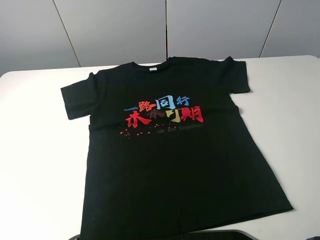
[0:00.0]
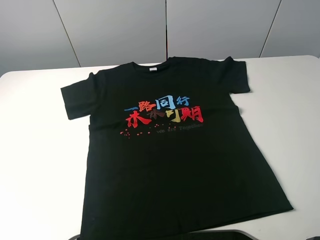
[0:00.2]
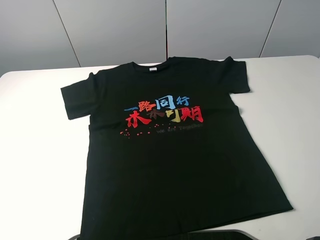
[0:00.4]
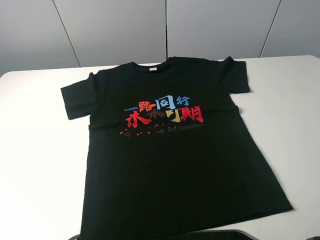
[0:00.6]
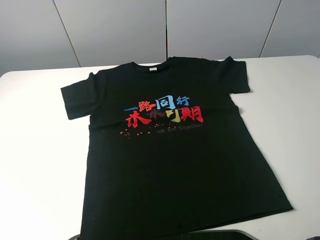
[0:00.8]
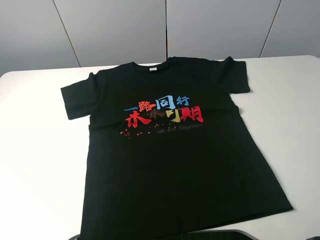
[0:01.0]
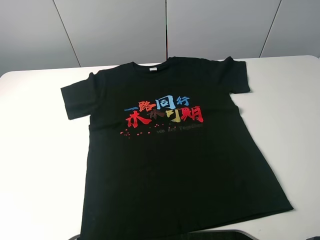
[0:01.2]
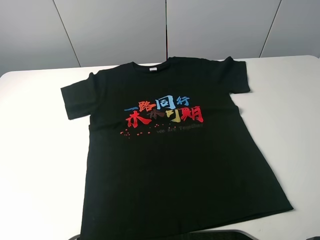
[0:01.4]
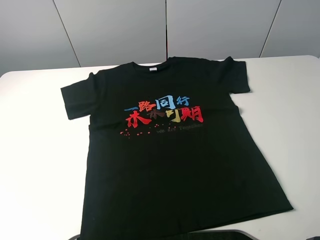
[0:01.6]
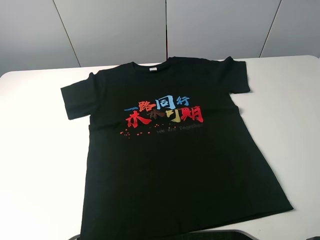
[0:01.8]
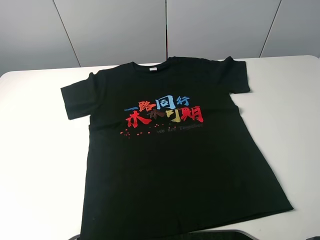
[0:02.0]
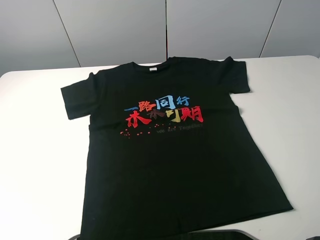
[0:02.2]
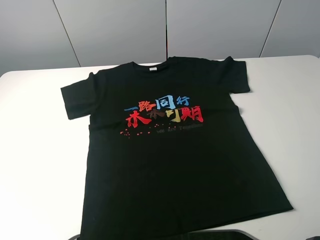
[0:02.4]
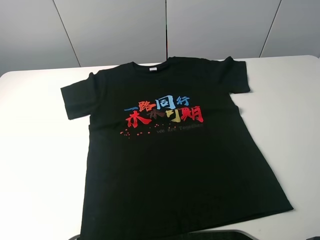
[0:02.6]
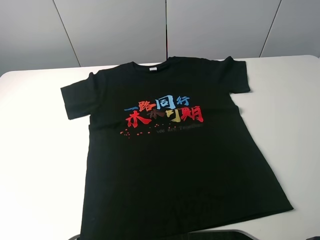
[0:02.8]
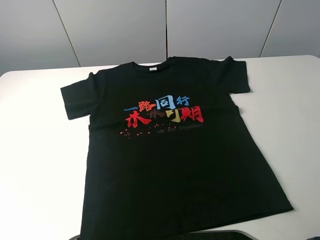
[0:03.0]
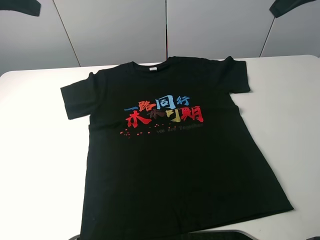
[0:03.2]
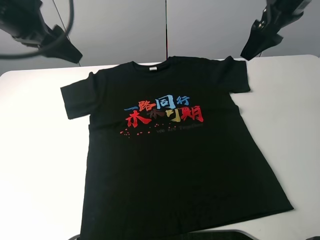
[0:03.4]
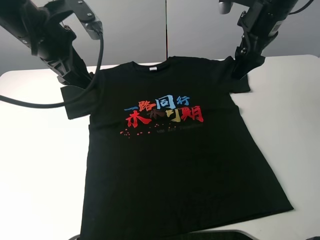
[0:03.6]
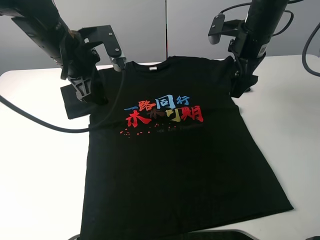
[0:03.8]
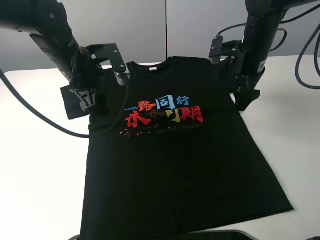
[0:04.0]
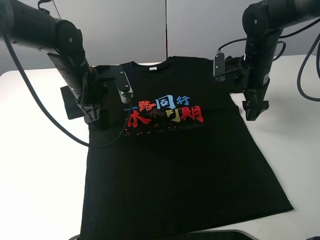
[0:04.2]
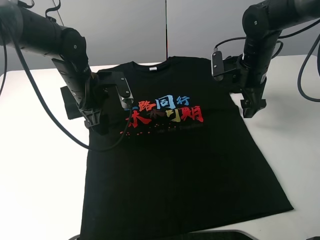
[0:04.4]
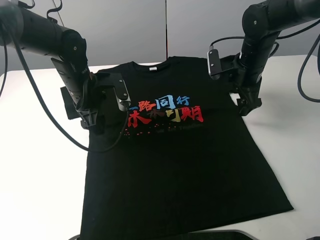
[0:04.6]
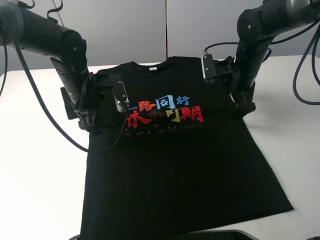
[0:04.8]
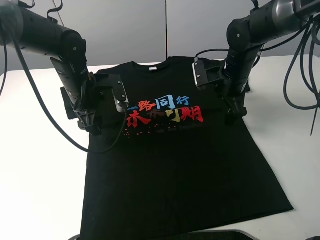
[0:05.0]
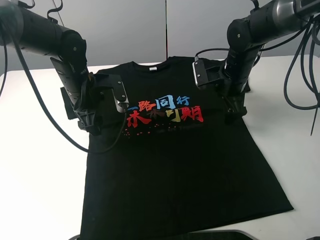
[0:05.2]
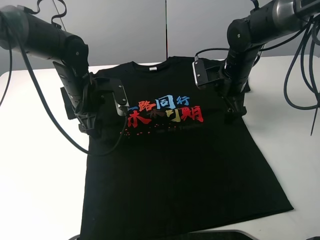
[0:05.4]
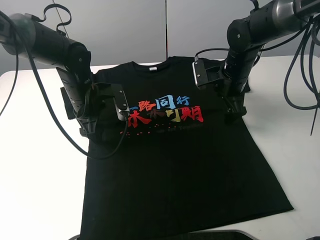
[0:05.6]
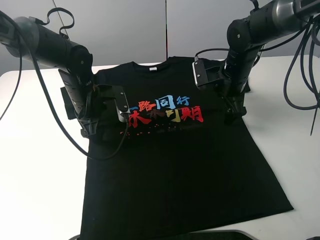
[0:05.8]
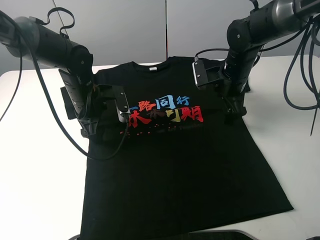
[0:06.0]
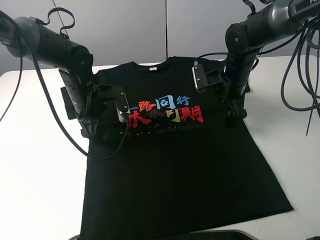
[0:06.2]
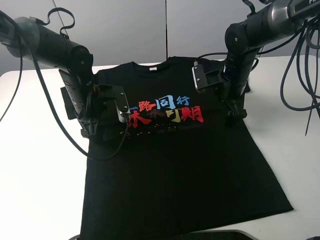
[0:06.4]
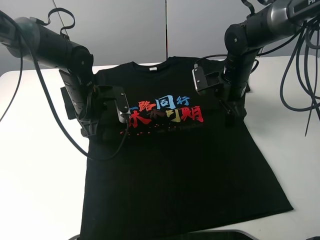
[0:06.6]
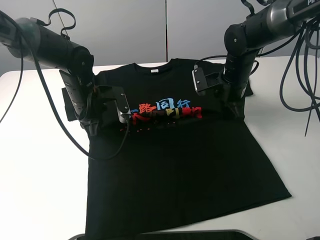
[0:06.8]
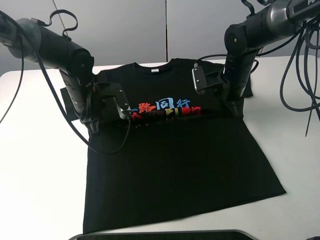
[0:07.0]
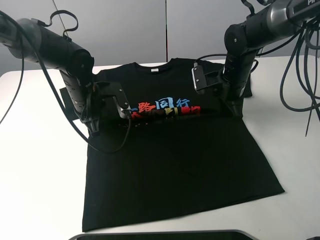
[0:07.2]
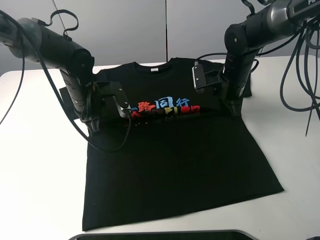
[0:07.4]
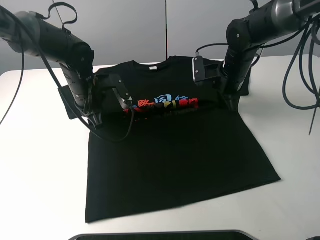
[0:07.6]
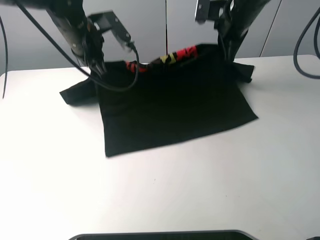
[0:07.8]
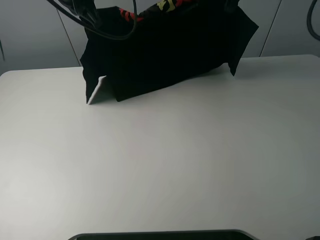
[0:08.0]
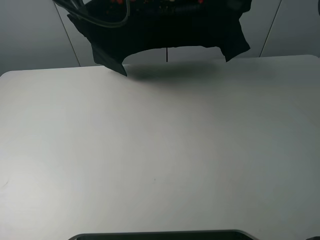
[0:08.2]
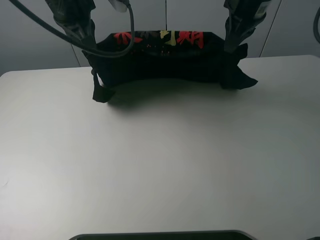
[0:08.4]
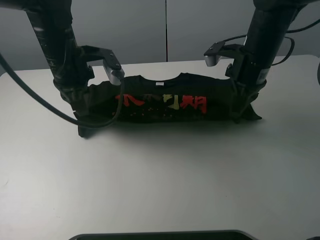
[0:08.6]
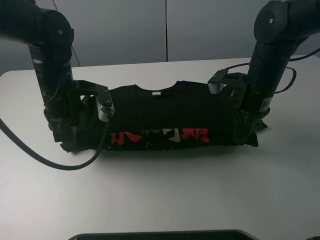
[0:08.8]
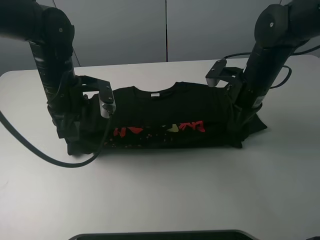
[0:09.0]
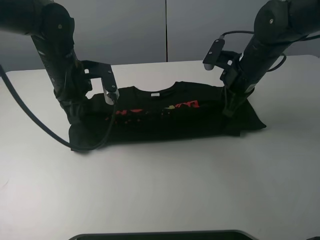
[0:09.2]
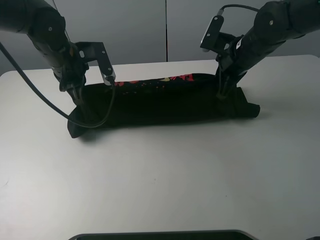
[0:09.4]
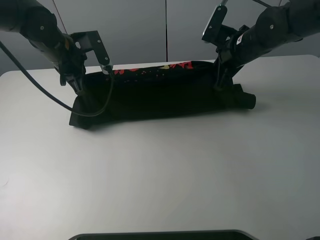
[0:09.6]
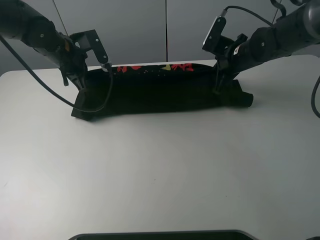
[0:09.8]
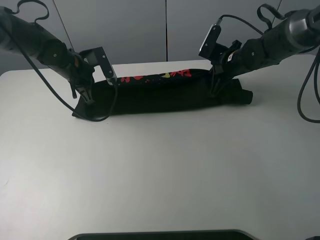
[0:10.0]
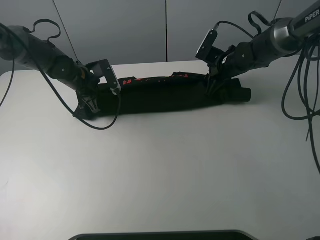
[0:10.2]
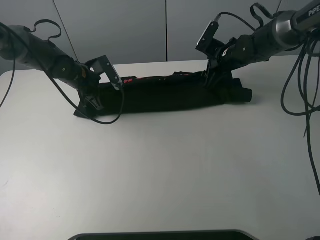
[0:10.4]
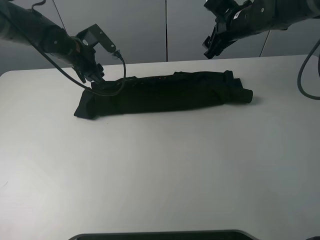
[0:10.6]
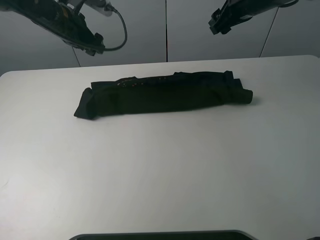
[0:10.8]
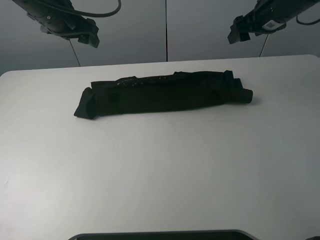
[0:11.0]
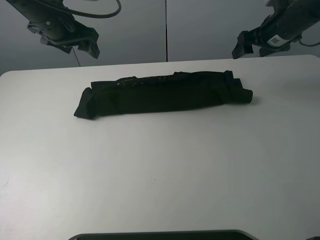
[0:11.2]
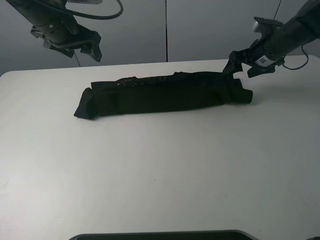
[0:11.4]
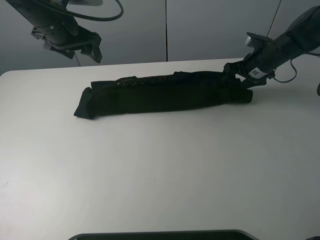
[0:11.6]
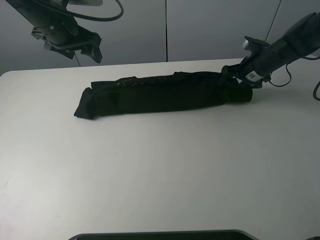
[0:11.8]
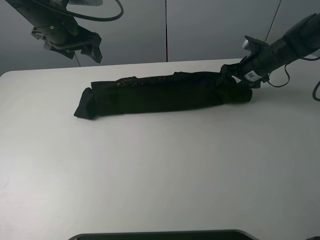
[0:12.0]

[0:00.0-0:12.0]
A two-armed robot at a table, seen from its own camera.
Task of the whole recording: fold the clothes on the table.
Step, 0:00.0 to 0:07.0: Lift the black T-shirt with the left gripper.
Step, 0:07.4 to 0:10.6: Fold the black T-shirt downward with the left gripper.
0:00.0 to 0:01.6: Both grippers stay put.
0:01.6 to 0:03.0: The right gripper goes some 30 cm forward.
0:03.0 to 0:04.4: The left gripper goes approximately 30 cm downward and to the right, while the right gripper moves downward, roughly 25 cm.
0:04.4 to 0:06.0: There are only small adjustments of the grippers.
0:06.0 to 0:07.6: The right gripper closes, while the left gripper closes its fingers.
0:07.6 to 0:09.0: Both grippers move backward, about 5 cm. The right gripper travels upward and back again, about 20 cm each way; the left gripper reaches roughly 20 cm upward, then returns.
0:09.0 to 0:10.4: The left gripper moves forward and downward, about 15 cm. Meanwhile the right gripper goes roughly 15 cm forward, and opens its fingers.
0:10.4 to 0:12.0: The left gripper travels upward by approximately 15 cm, and opens its fingers. The right gripper shifts about 10 cm to the right, and moves some 15 cm upward and comes back.

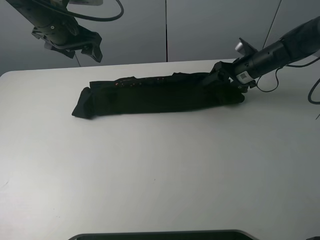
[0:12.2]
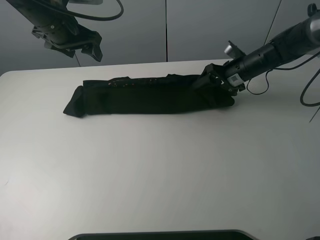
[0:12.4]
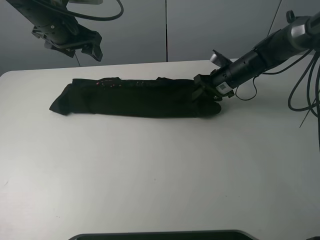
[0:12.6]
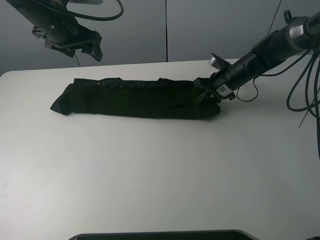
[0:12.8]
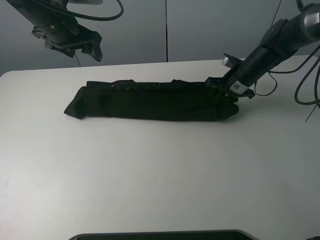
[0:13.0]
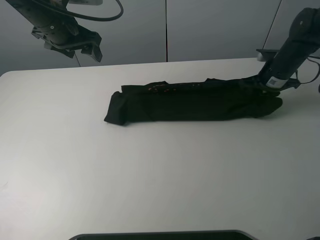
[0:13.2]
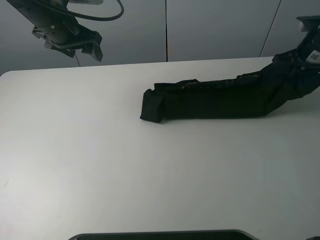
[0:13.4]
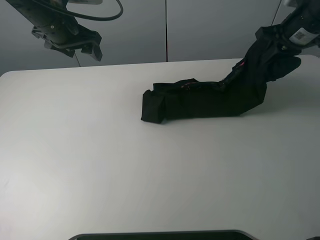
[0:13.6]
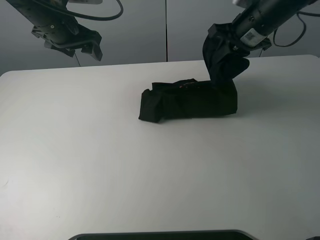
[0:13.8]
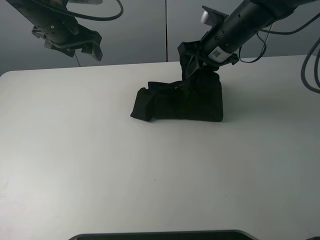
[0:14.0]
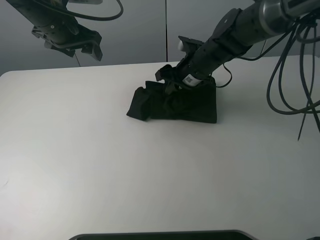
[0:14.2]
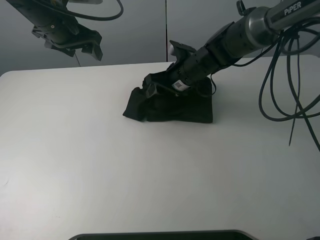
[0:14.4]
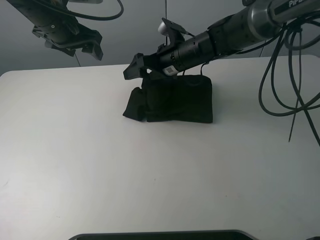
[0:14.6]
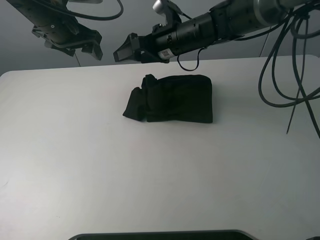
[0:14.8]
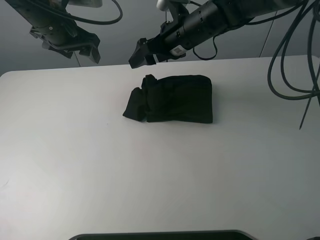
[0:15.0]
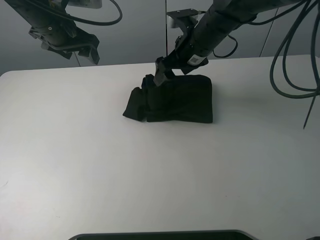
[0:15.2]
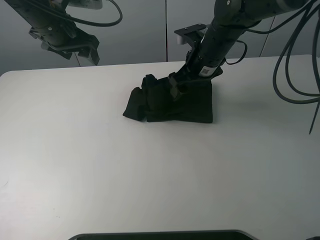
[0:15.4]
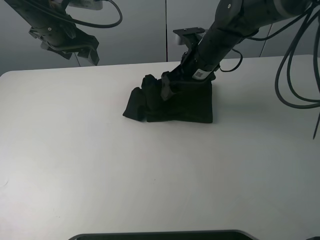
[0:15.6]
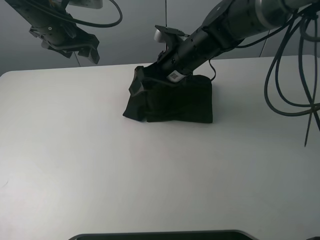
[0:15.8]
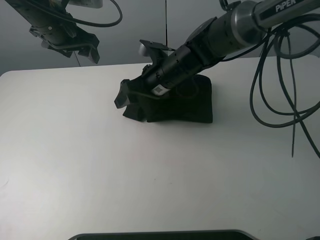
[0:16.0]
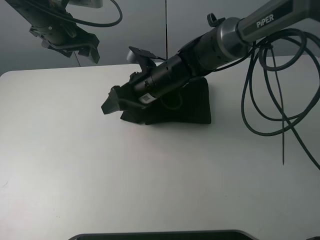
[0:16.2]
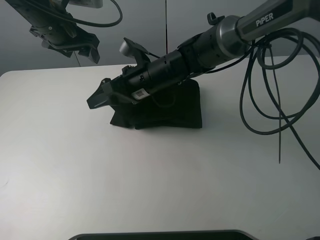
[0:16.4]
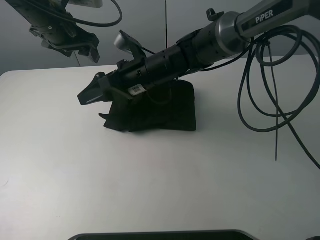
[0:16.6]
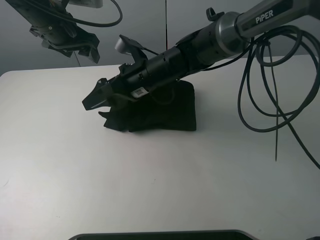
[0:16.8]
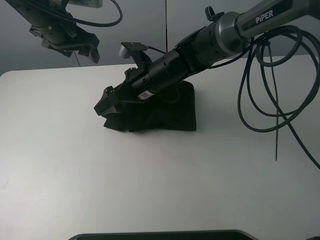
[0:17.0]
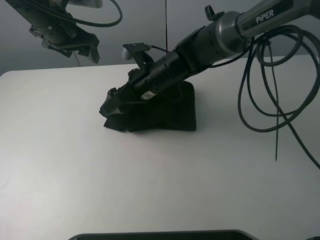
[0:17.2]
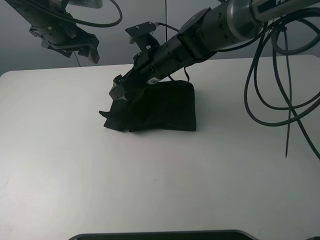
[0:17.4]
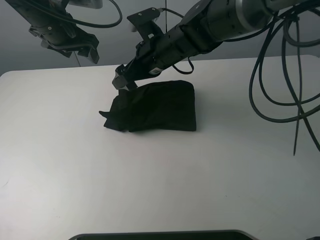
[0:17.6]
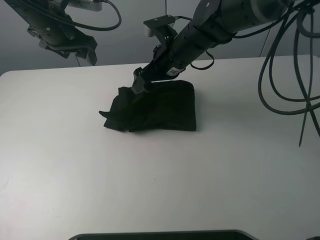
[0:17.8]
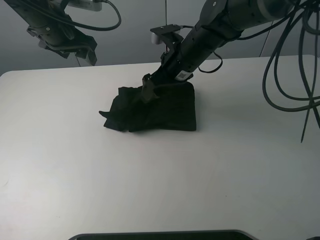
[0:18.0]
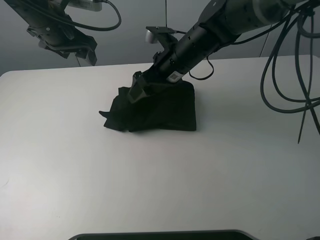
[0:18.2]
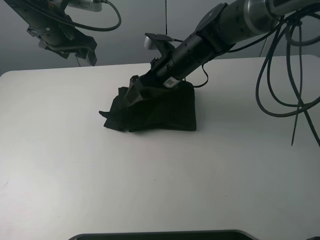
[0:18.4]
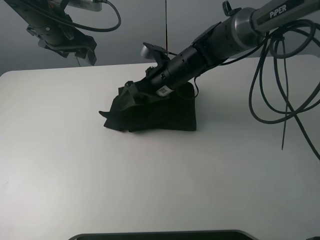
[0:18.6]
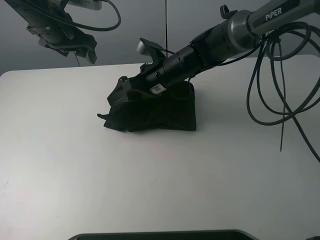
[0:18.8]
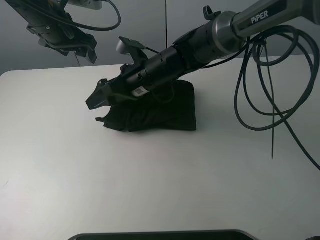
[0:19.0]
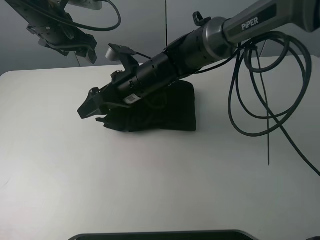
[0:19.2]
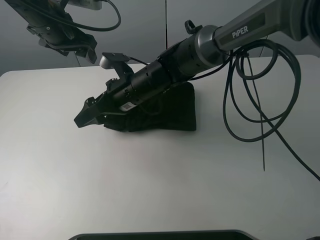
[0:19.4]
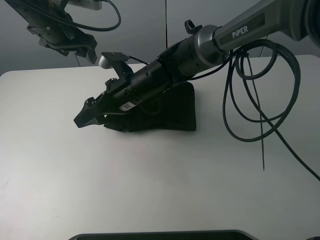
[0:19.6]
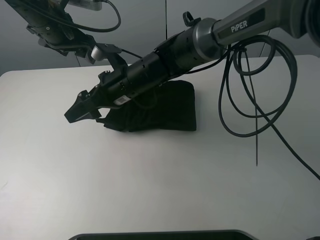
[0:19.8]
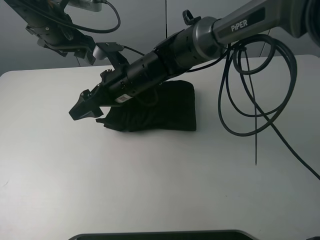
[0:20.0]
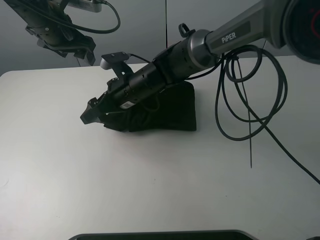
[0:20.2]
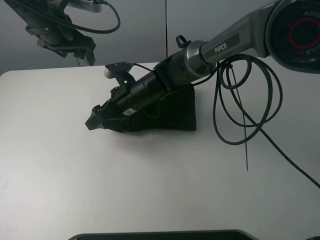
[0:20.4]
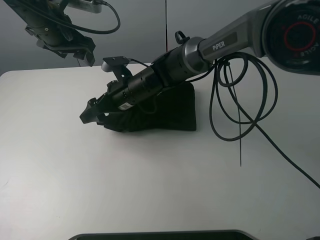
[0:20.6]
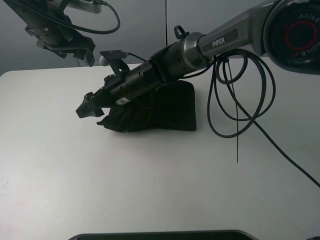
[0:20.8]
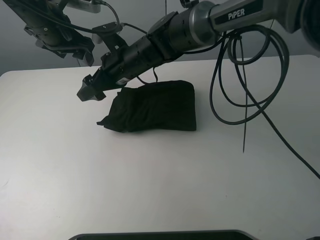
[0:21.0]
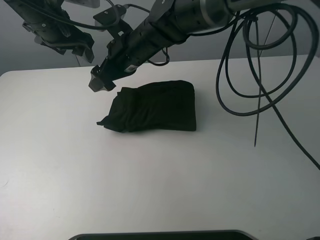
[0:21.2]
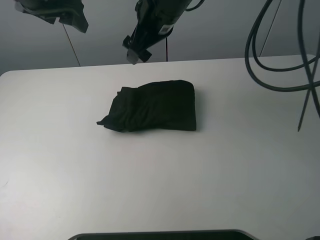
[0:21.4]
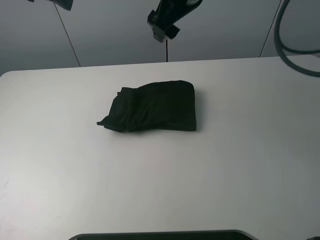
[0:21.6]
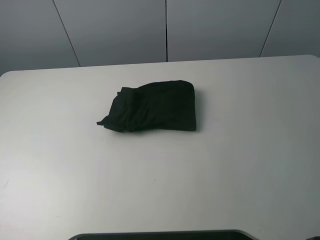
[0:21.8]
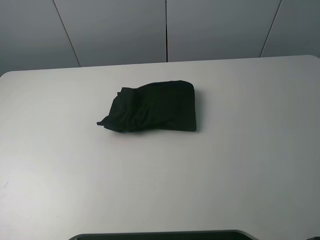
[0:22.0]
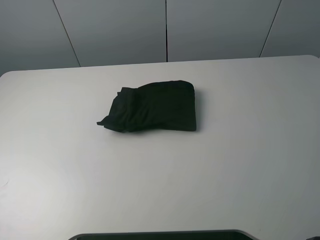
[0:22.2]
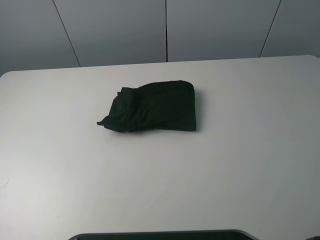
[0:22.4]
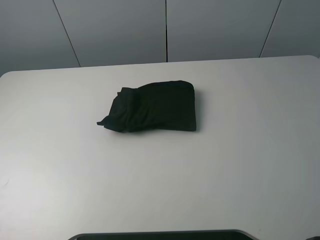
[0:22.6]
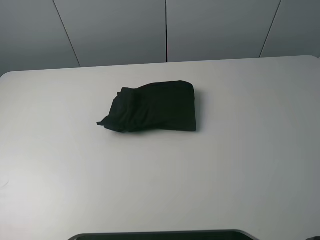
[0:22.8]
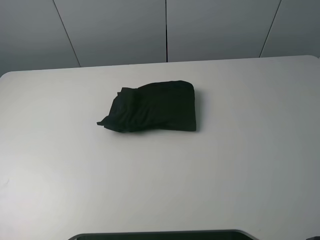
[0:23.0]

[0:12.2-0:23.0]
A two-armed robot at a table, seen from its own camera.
Task of the whole recording: fold the clothes on the table.
Step, 0:12.6 to 0:19.2: Fold the black T-shirt from right to left with right gripper.
0:12.2 to 0:13.8: The right gripper heads upward and to the left, covering approximately 15 cm, and closes up.
0:13.8 to 0:15.2: The right gripper shifts about 10 cm to the left, and opens up.
0:15.2 to 0:16.8: The right gripper moves to the left and backward, approximately 10 cm.
0:16.8 to 0:18.4: The right gripper is displaced to the right by approximately 5 cm.
0:18.4 to 0:20.0: The right gripper travels to the left by roughly 10 cm.
0:20.0 to 0:21.4: The left gripper heads upward, covering some 10 cm, while the right gripper goes some 15 cm upward and to the right.
0:21.4 to 0:23.0: The right gripper moves backward, to the right and upward, roughly 70 cm, while the left gripper shifts approximately 40 cm backward and to the left.
